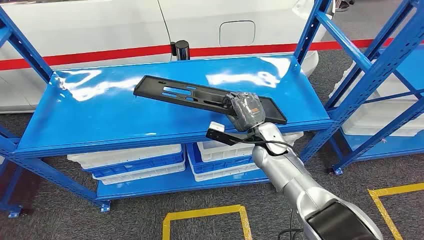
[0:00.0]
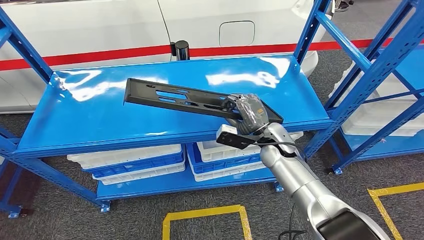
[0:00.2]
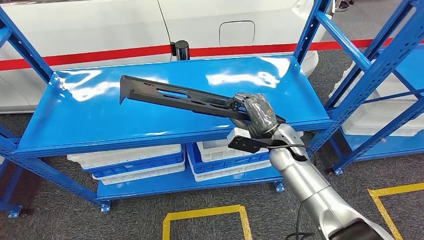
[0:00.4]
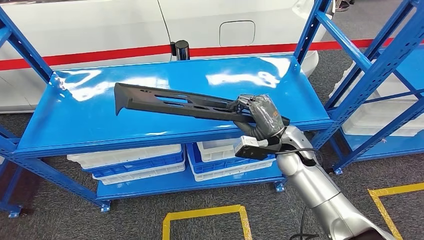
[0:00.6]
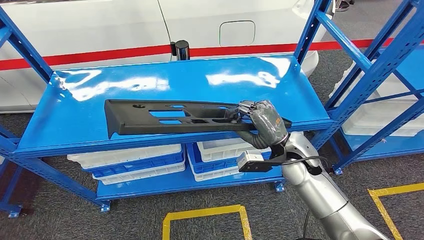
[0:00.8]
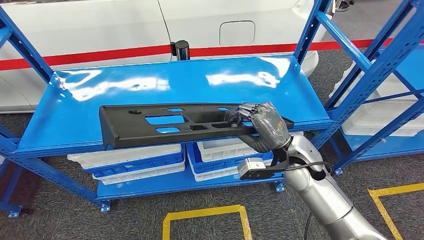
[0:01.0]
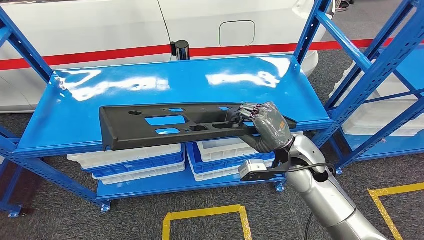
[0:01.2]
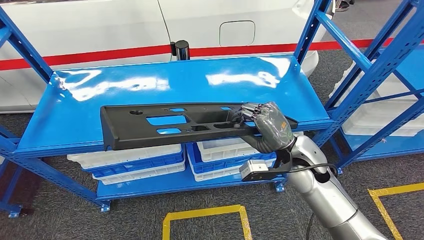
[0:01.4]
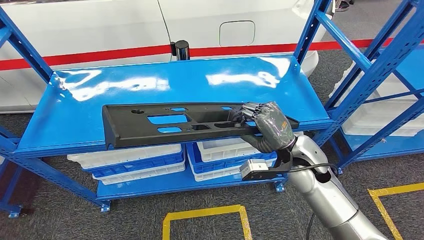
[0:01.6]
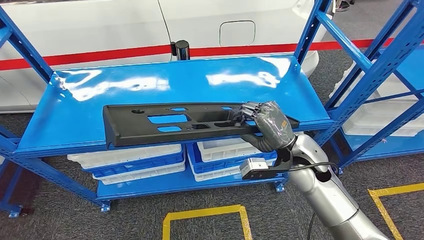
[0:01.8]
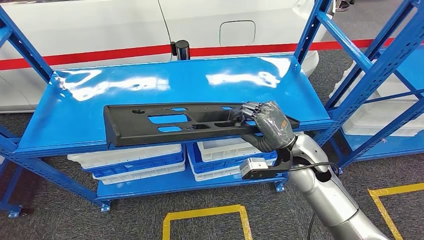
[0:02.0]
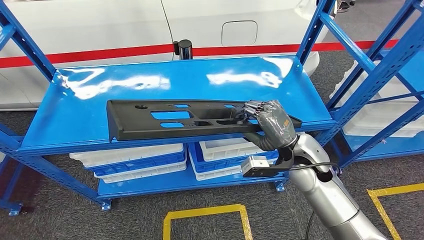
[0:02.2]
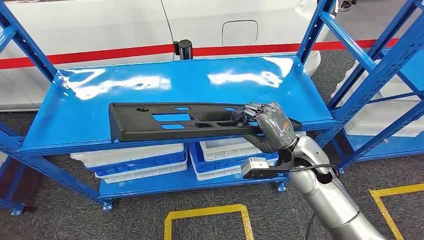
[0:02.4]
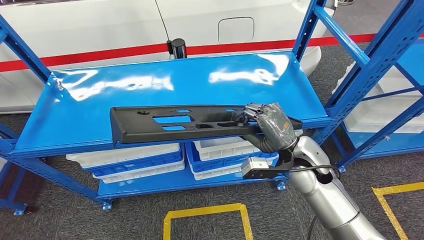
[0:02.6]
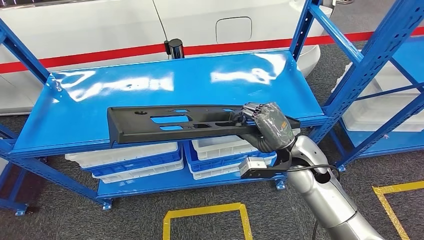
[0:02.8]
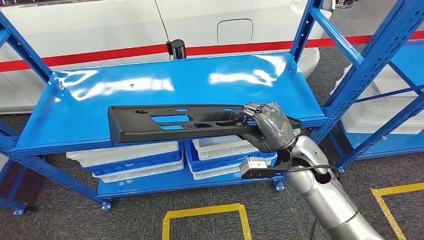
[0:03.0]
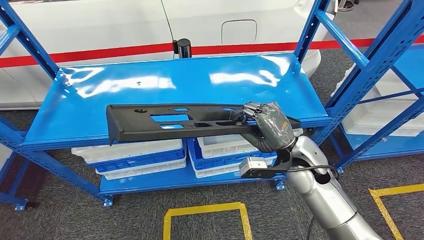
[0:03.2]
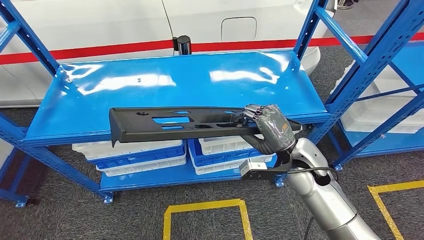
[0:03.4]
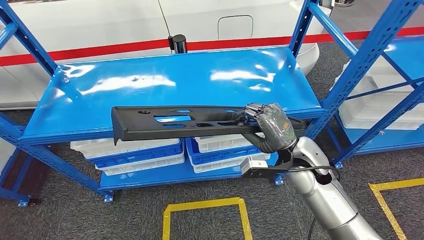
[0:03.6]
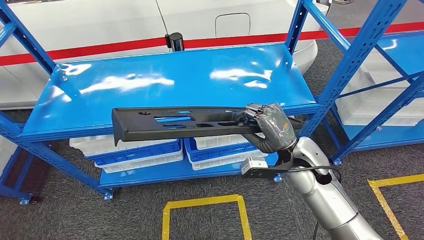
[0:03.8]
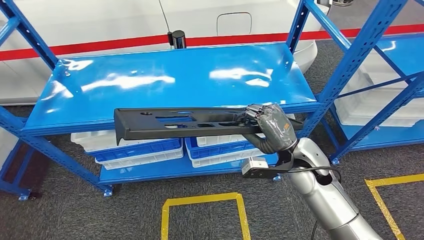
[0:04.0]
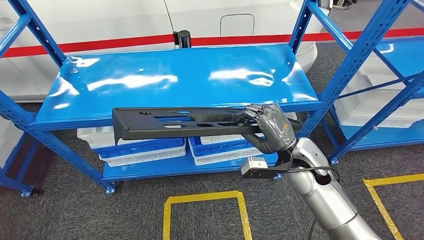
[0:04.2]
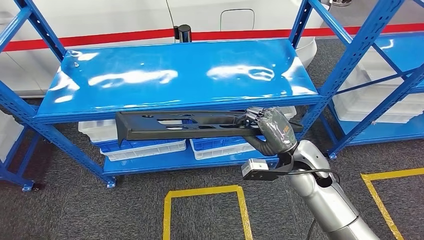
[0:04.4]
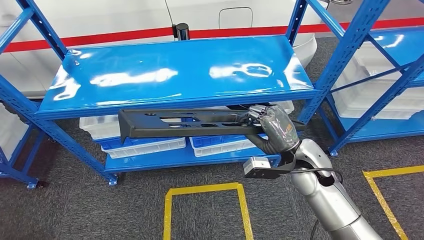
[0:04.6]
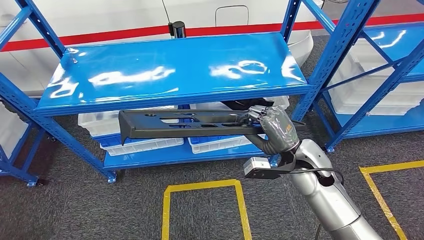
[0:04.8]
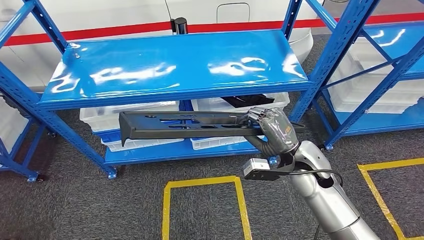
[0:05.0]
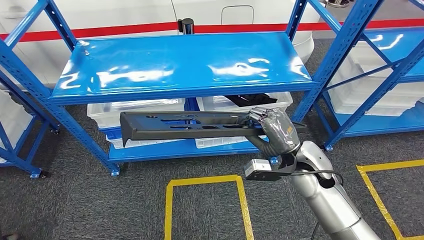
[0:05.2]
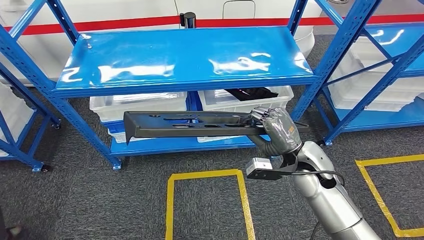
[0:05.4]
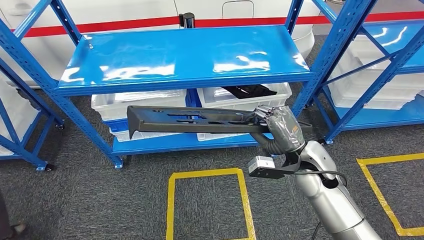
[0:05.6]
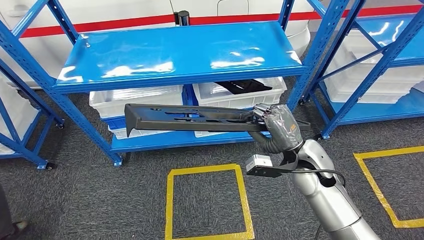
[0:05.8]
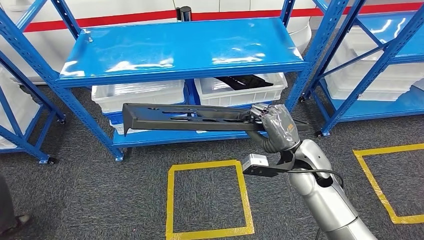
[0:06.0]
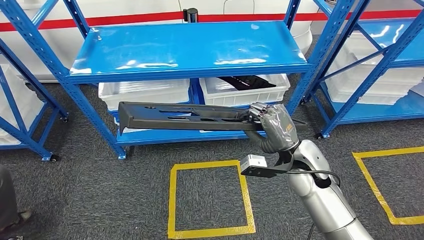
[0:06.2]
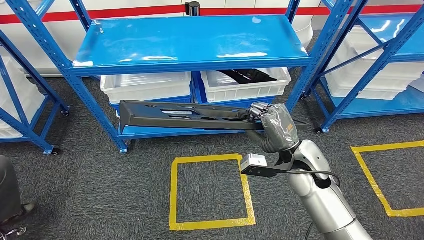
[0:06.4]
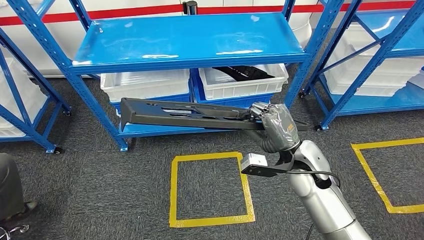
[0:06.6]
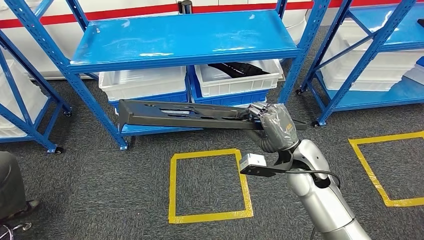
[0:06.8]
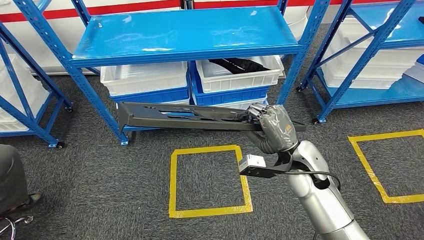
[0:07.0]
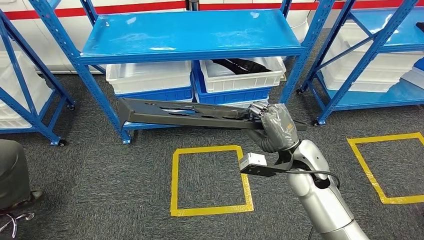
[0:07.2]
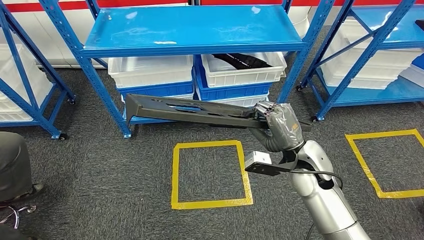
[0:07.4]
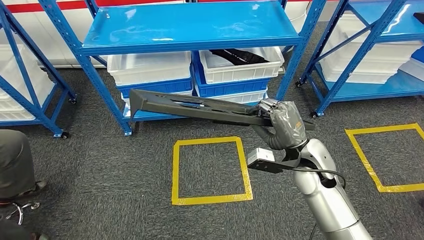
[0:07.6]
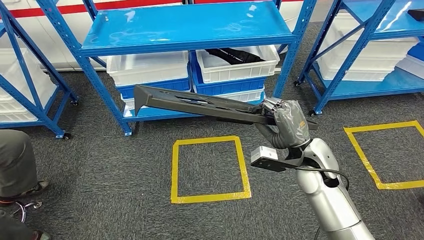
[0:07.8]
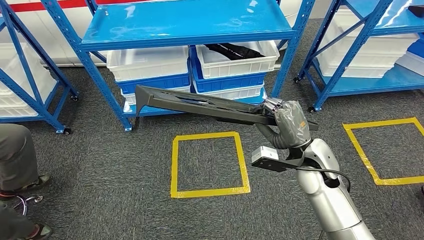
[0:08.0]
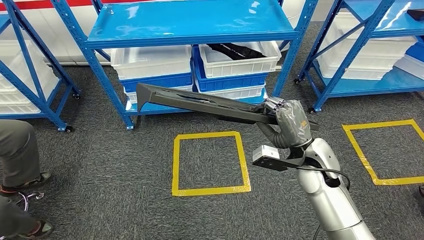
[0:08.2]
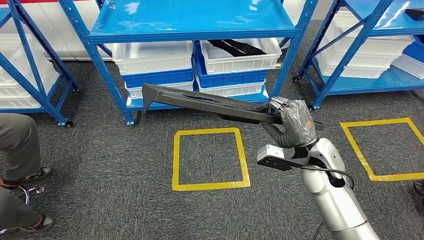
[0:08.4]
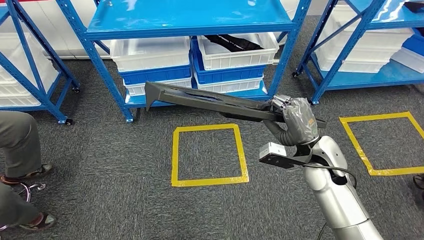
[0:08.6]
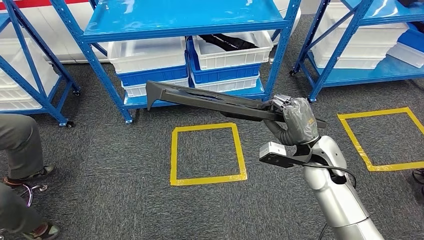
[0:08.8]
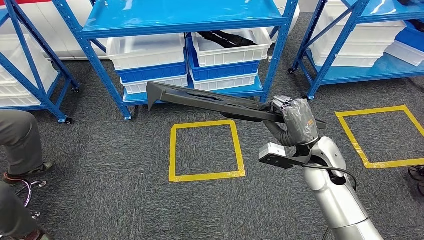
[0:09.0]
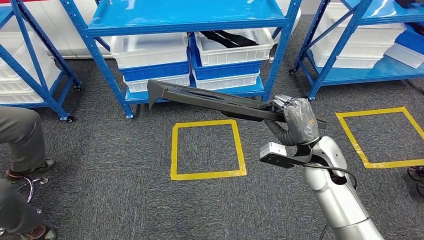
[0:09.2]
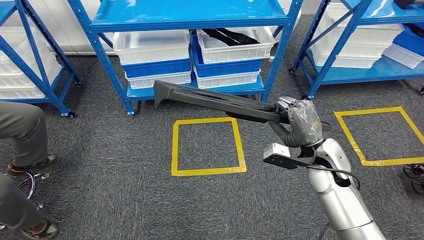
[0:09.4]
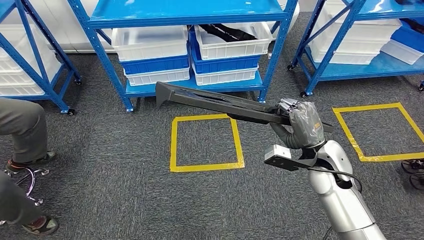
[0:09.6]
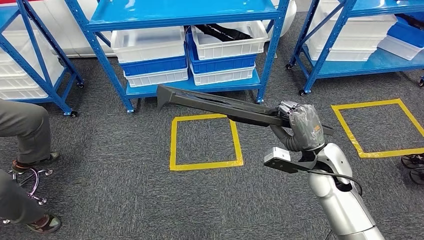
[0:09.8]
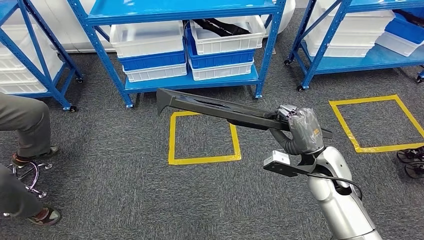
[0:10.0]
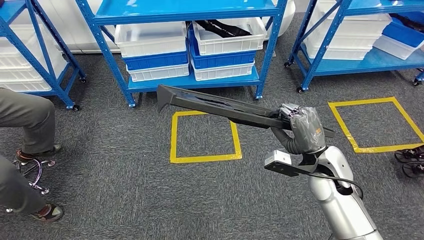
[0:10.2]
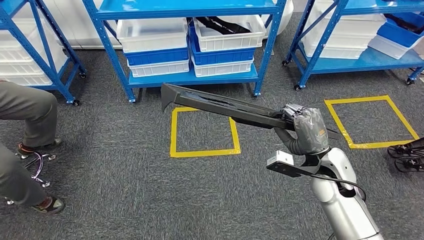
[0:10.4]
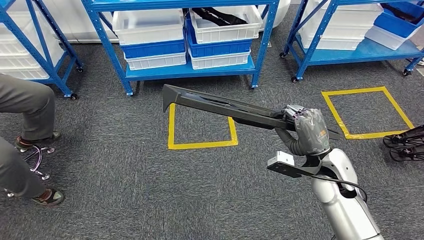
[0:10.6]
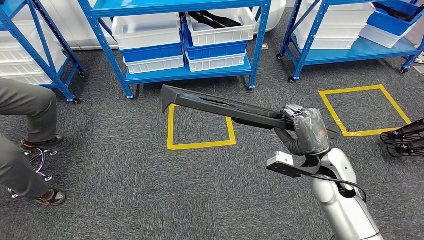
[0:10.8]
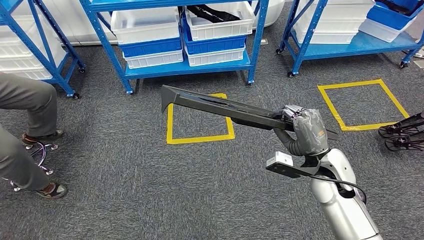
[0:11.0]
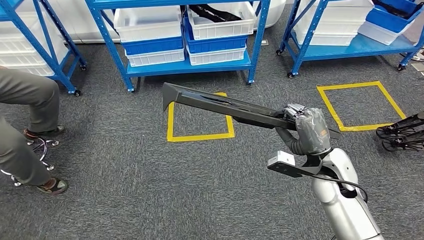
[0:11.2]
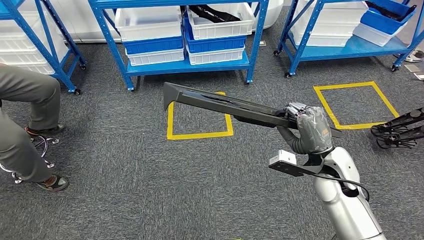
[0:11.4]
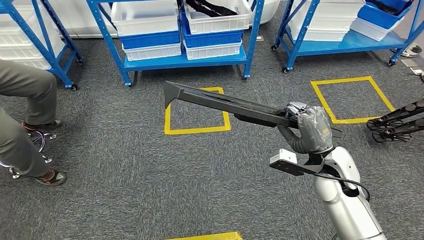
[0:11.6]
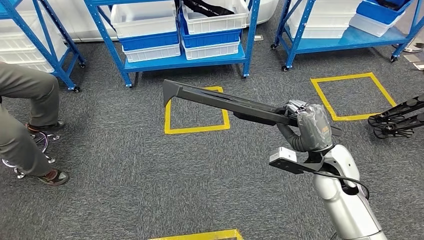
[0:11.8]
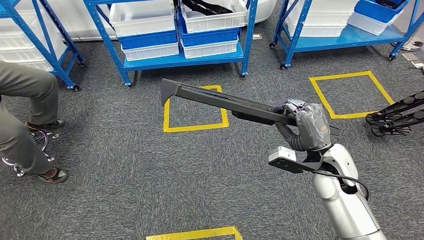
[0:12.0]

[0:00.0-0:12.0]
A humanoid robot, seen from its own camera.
Step, 0:00.0 to 0:05.4: Pick up the large material from the shelf.

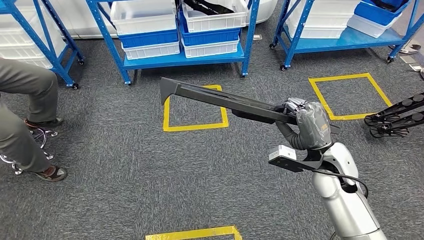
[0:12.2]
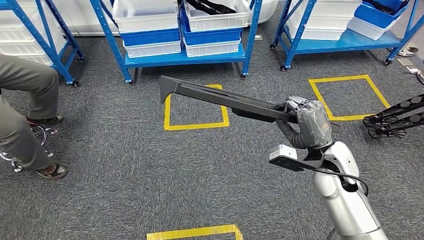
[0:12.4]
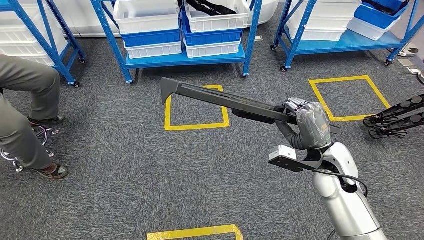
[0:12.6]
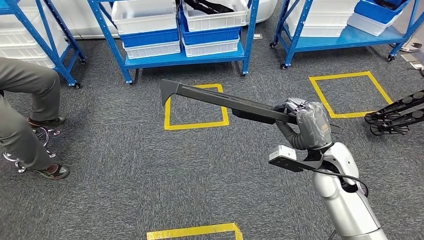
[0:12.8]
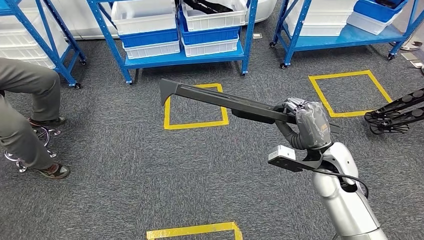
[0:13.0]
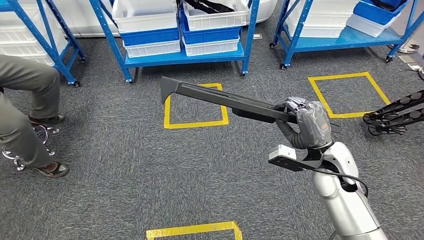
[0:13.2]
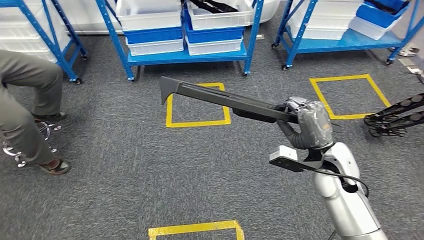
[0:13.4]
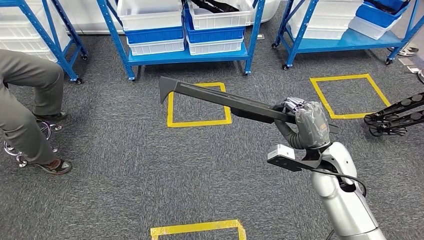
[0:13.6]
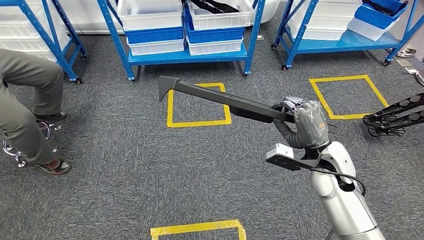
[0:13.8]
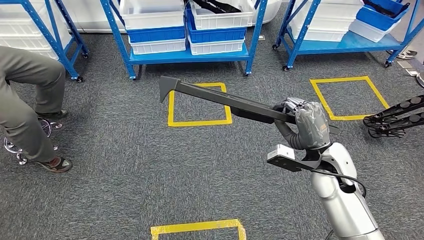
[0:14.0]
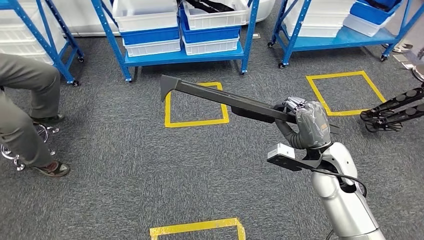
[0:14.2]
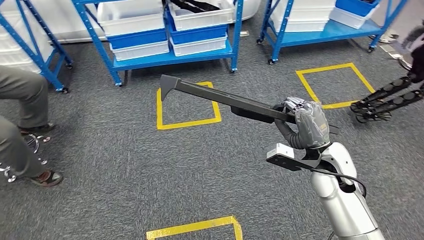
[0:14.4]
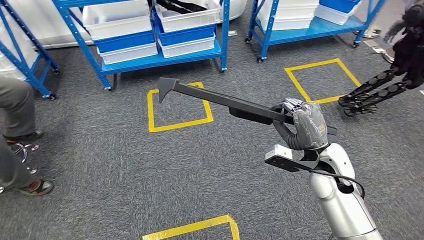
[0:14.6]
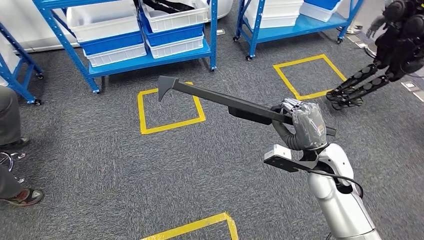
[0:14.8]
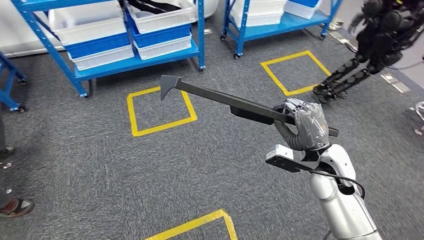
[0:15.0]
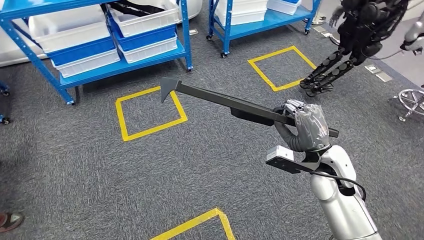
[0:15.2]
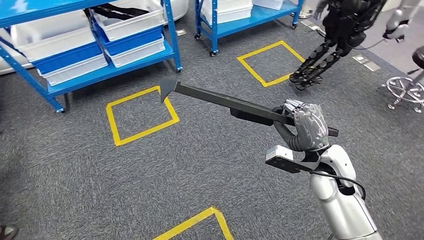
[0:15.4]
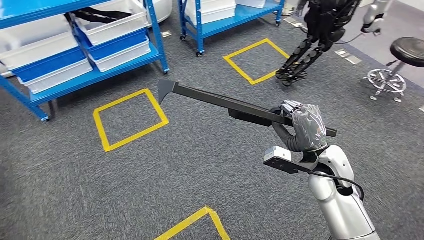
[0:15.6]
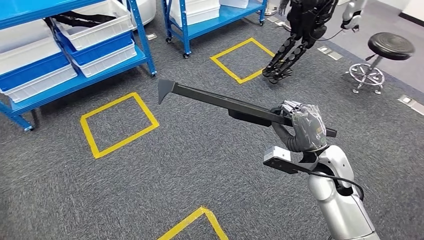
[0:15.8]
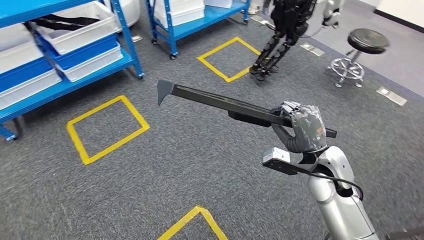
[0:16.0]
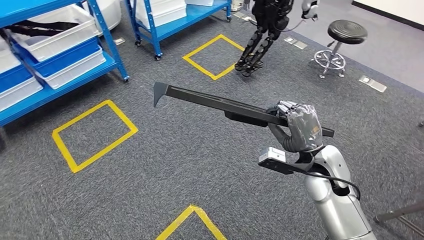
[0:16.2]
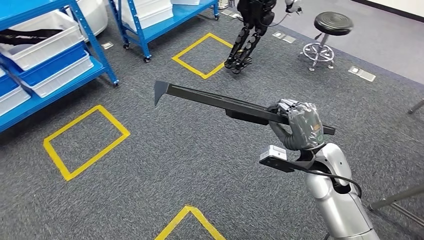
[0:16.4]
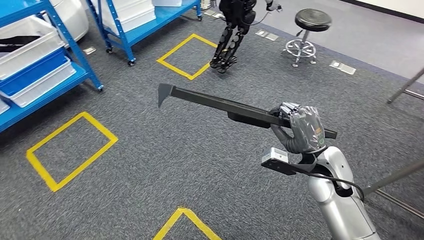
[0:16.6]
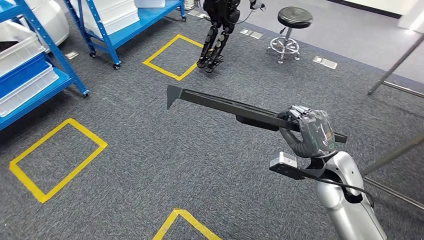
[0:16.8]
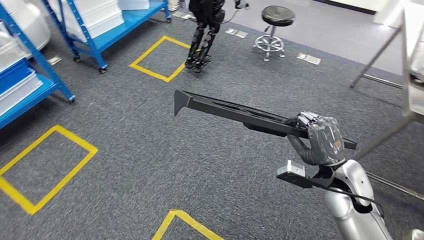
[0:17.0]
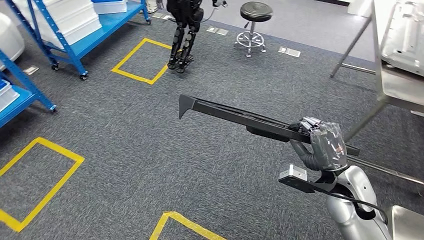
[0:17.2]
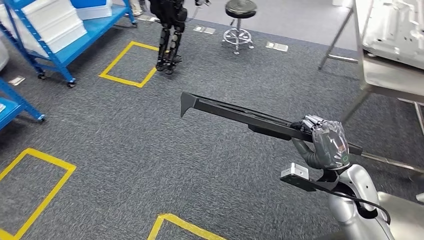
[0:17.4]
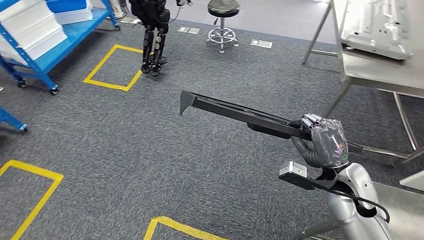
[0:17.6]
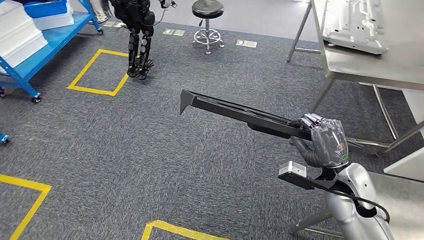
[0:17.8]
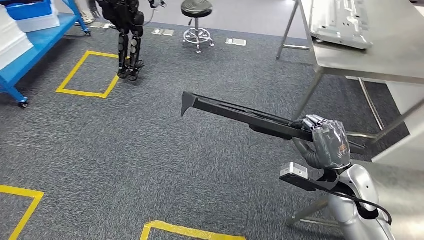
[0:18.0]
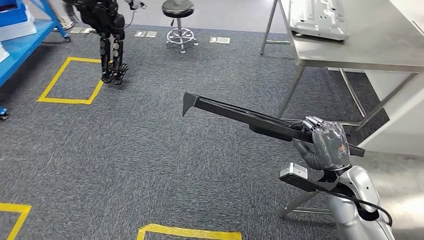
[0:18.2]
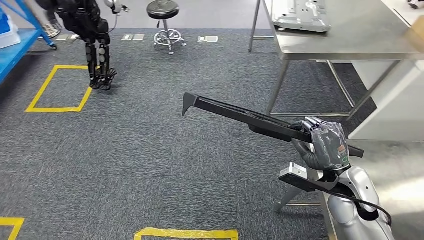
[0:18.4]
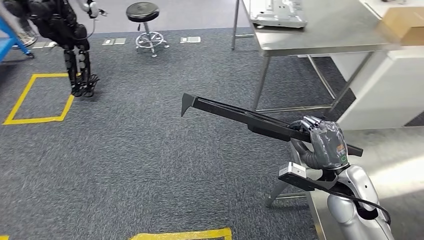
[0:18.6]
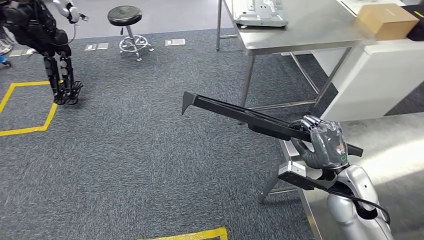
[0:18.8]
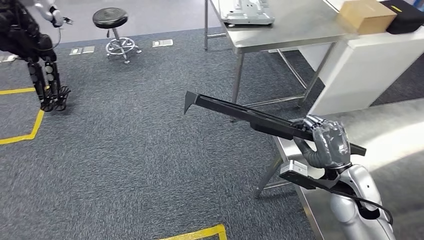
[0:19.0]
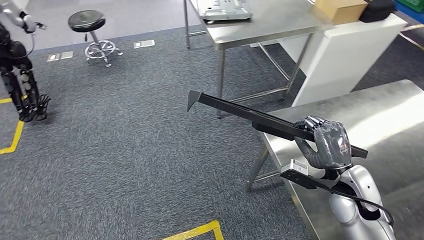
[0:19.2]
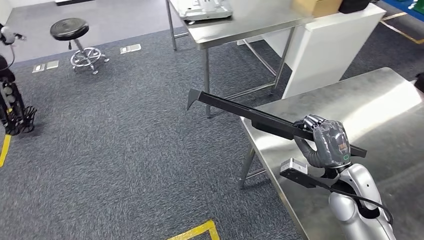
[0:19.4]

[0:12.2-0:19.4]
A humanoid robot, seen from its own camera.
Step, 0:12.2 to 0:18.0: Move the large material to the workbench.
